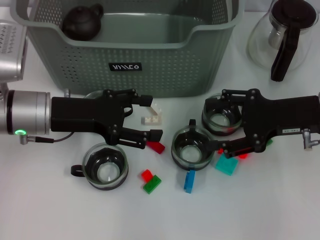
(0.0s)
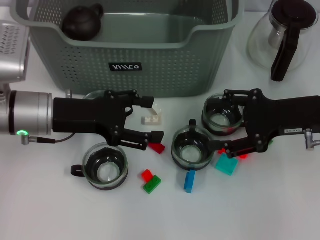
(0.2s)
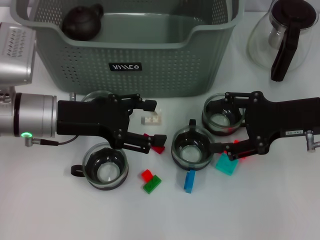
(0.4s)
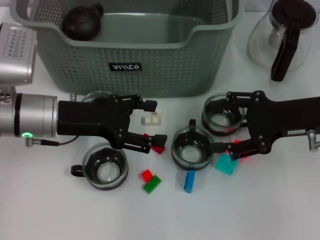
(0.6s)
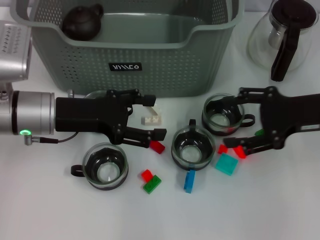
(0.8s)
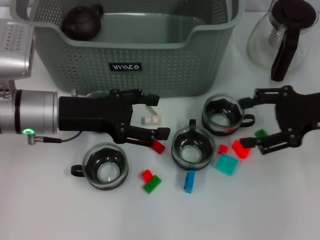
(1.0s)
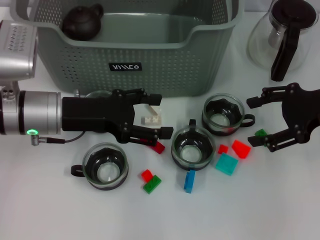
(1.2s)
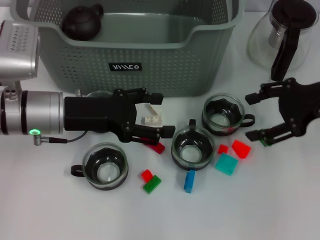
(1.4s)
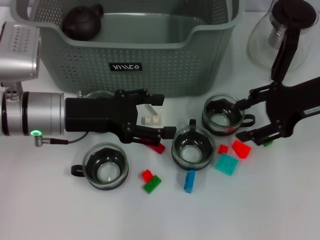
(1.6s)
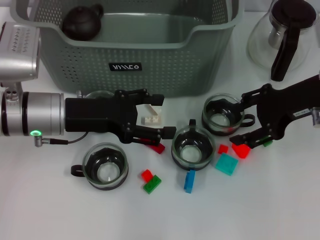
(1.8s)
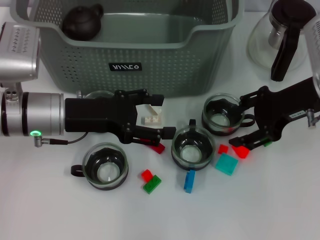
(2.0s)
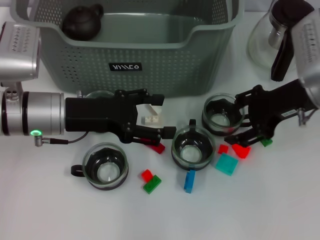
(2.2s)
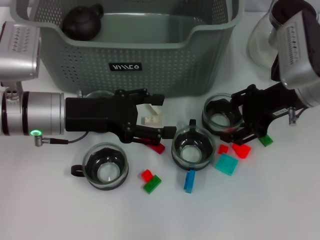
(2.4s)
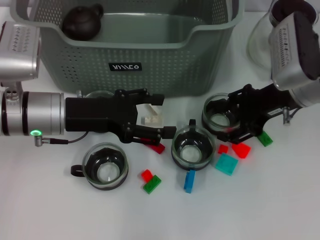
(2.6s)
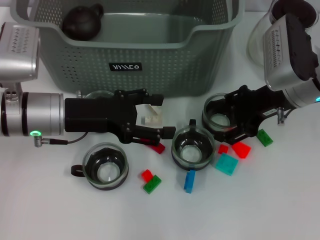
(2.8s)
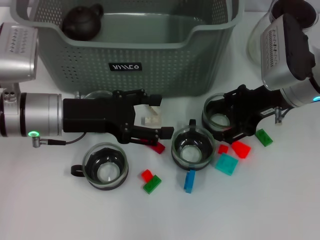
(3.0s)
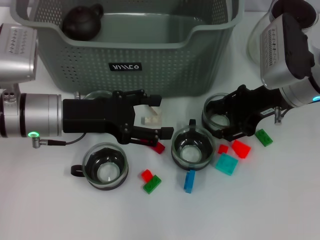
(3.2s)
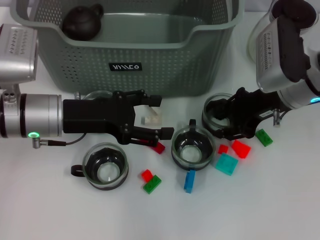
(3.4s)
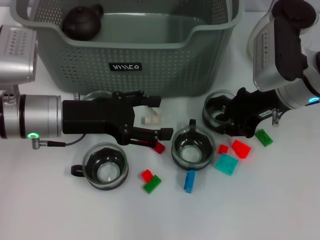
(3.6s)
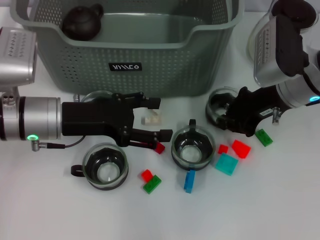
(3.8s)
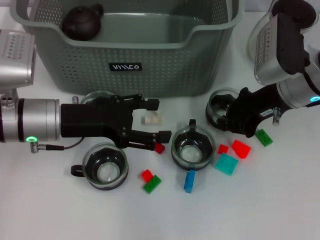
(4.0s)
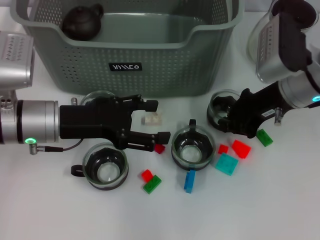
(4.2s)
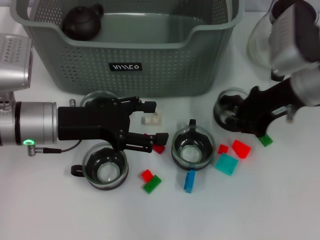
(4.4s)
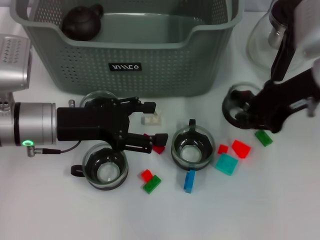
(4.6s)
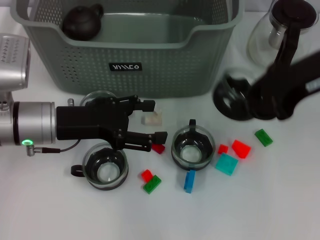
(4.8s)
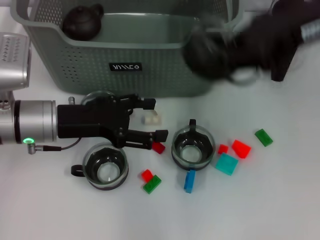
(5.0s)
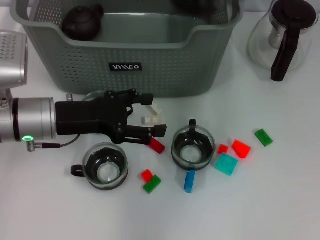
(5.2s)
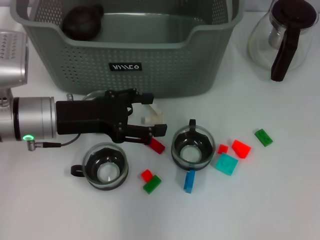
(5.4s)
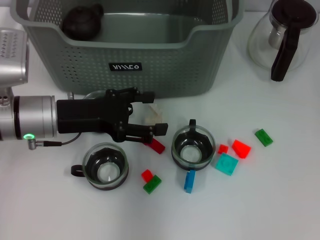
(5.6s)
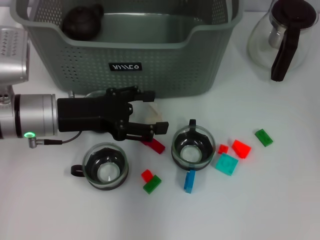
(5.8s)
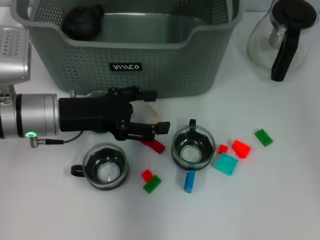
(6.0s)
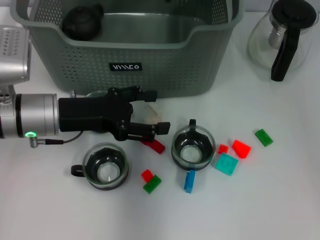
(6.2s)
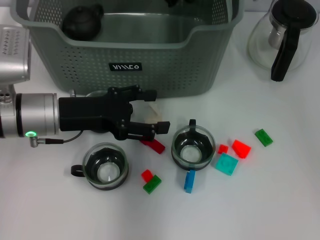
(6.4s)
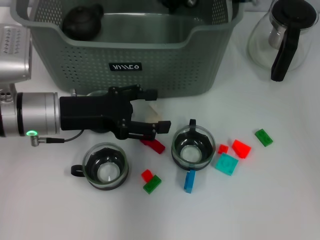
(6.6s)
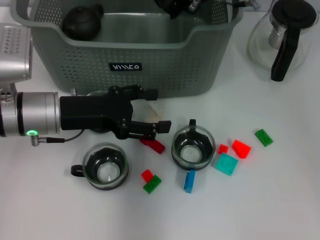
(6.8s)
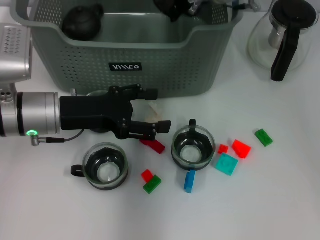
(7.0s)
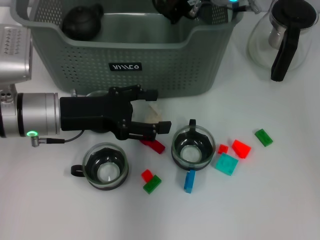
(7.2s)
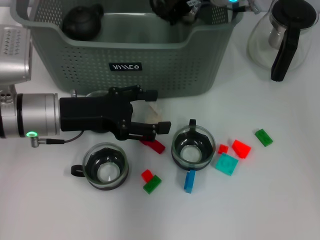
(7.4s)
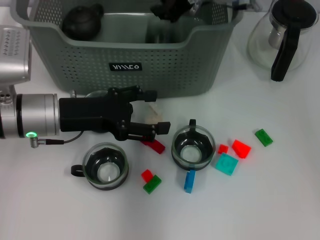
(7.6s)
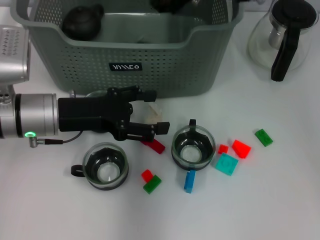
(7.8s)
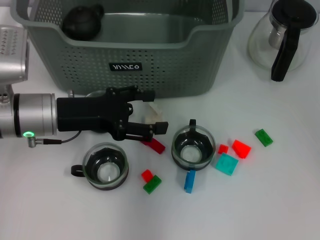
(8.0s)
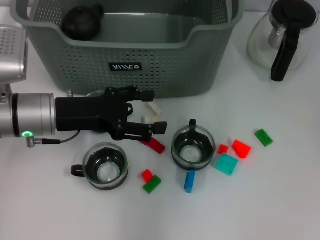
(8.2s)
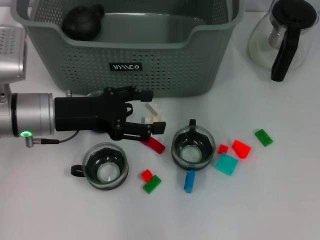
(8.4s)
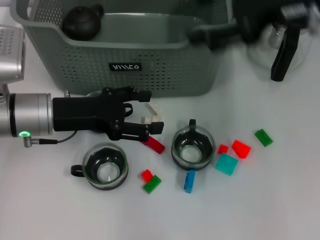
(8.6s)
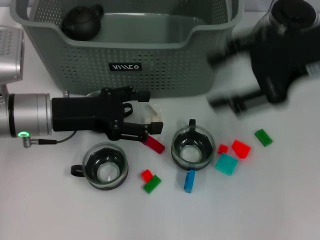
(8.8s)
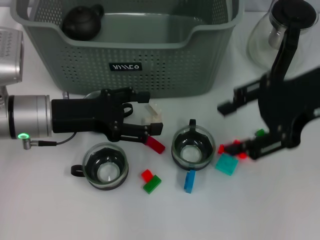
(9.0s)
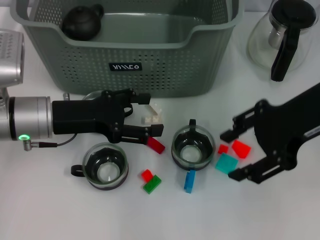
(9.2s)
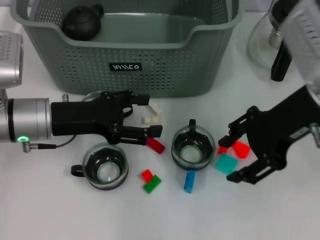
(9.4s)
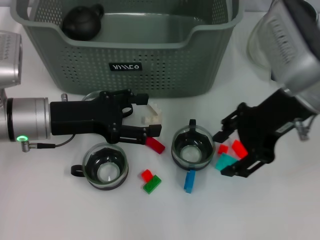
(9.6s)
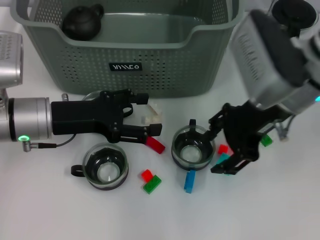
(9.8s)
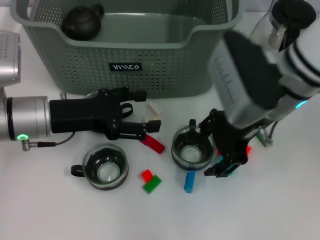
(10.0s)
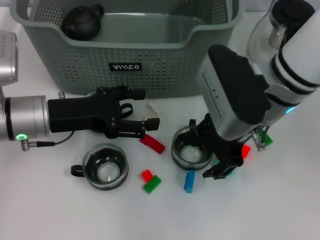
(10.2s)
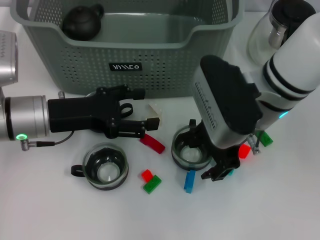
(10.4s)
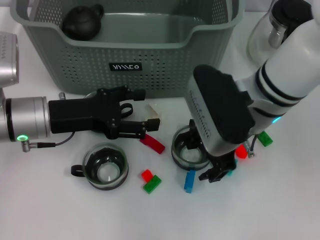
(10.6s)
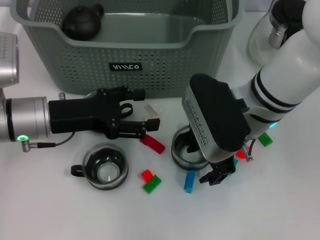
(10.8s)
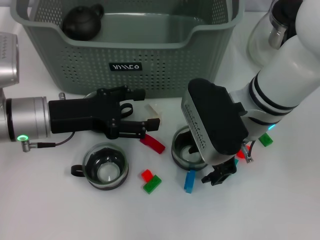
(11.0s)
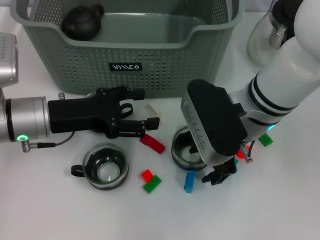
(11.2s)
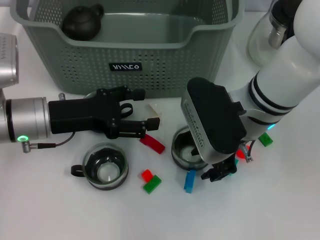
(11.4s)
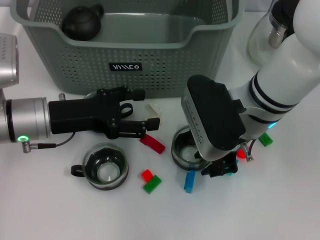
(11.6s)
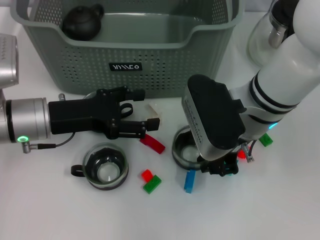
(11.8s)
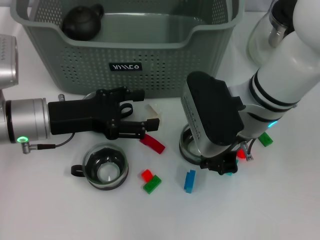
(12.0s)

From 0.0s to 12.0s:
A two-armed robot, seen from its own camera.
Task of the whole recording: pick up the teacup on the table and place it into the storage bin, pick up the block on the table and place it into the storage bin.
Step, from 0.0s to 3.8s: Grasp the cup with right gripper.
Step, from 4.0s to 8.2s: Place the cup in the storage box with right gripper.
Step, from 8.4s to 11.8s: Grasp the cup with right gripper.
From 0.0s to 1.6s: The right gripper shifts by about 5 cm.
From 1.6s to 3.0s: The right gripper moves to the left, roughly 5 cm.
From 3.0s to 4.4s: The right gripper closes its fingers.
From 4.4s to 6.0s: The right gripper heads to the left, upward and forward, covering some 20 cm.
From 6.0s to 7.6s: The grippers make only small movements.
From 7.6s to 9.0s: The right gripper heads backward and to the right, covering approximately 20 cm, and opens its fingers.
From 9.0s to 10.4s: The right gripper goes approximately 15 cm to the left and downward.
From 10.4s to 12.0s: The right gripper closes its fingers.

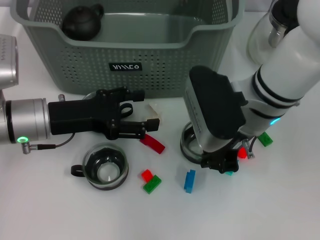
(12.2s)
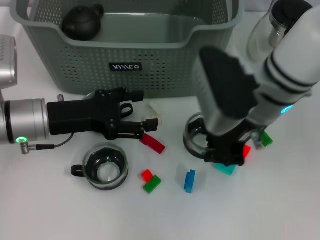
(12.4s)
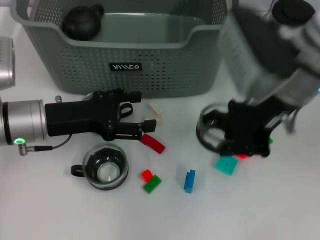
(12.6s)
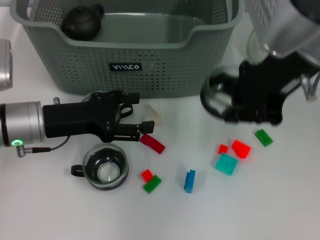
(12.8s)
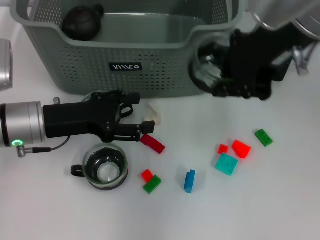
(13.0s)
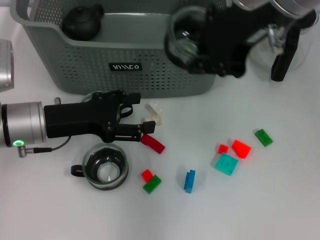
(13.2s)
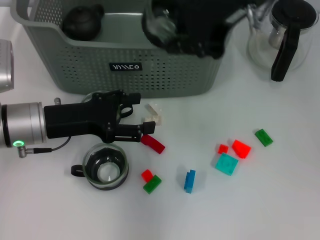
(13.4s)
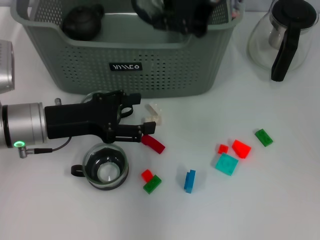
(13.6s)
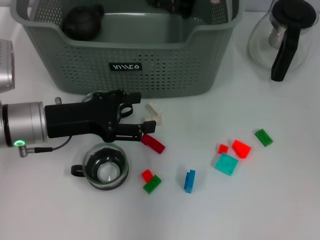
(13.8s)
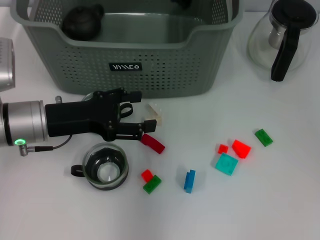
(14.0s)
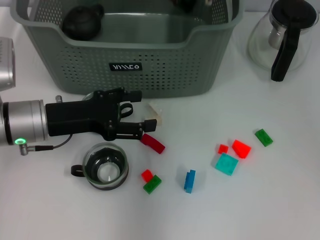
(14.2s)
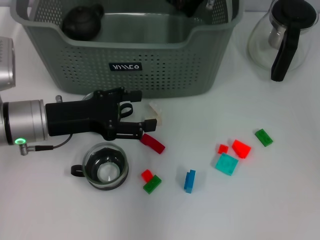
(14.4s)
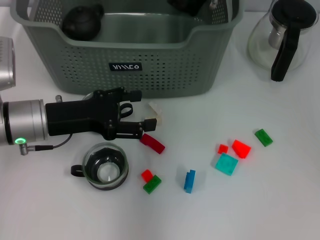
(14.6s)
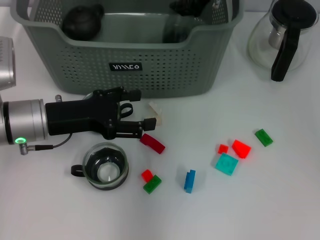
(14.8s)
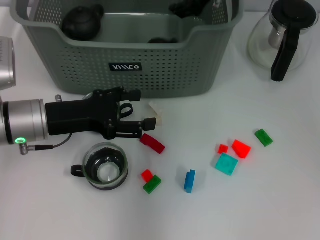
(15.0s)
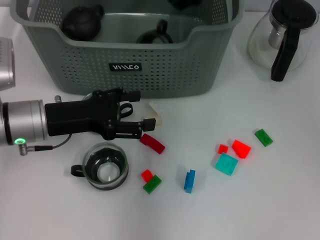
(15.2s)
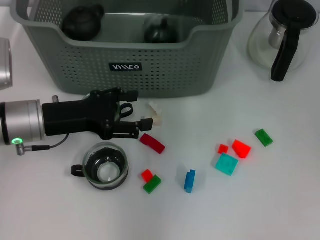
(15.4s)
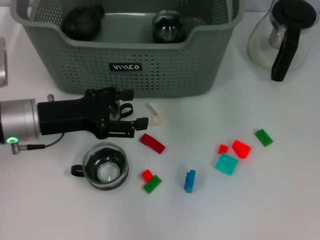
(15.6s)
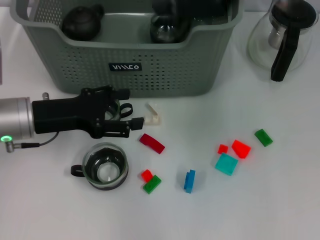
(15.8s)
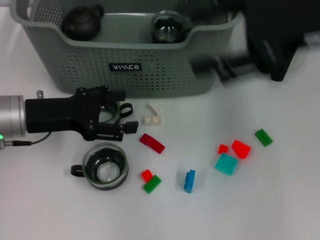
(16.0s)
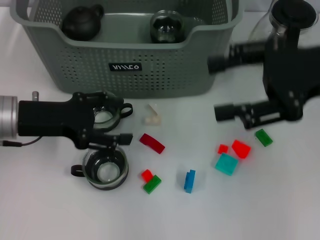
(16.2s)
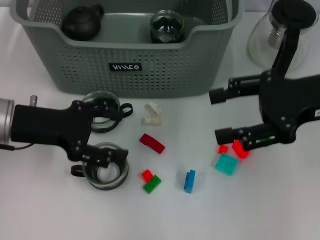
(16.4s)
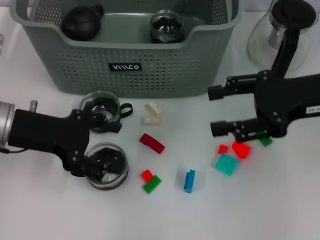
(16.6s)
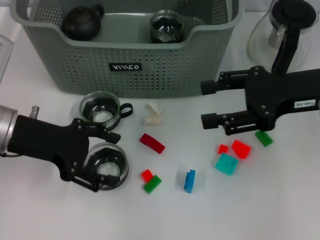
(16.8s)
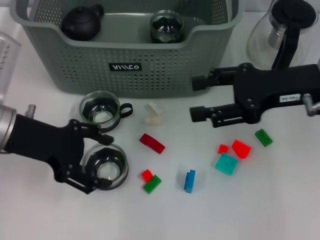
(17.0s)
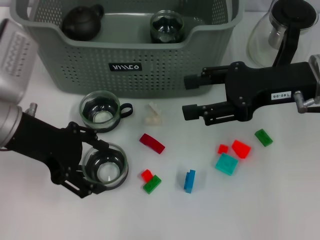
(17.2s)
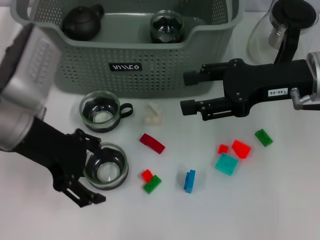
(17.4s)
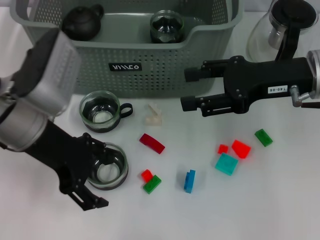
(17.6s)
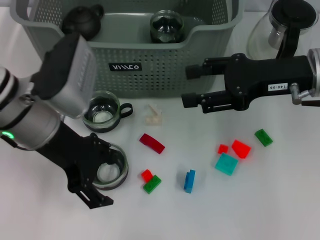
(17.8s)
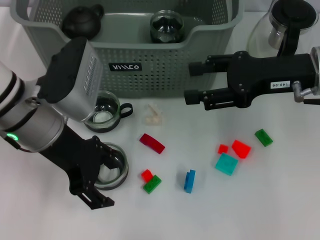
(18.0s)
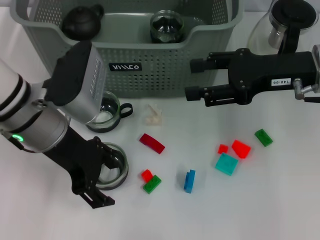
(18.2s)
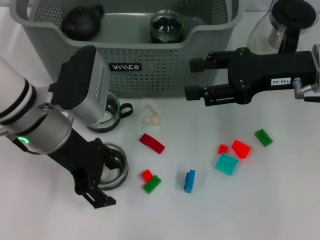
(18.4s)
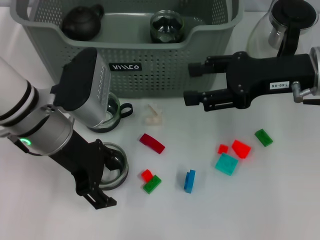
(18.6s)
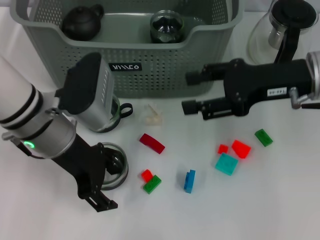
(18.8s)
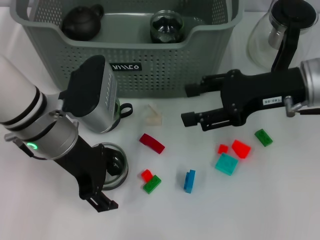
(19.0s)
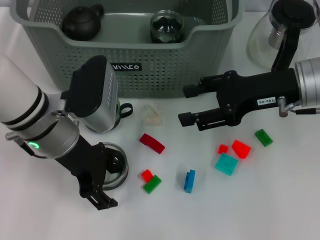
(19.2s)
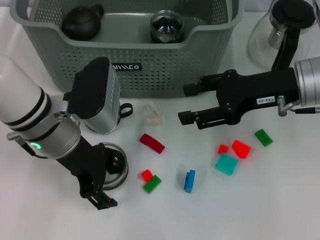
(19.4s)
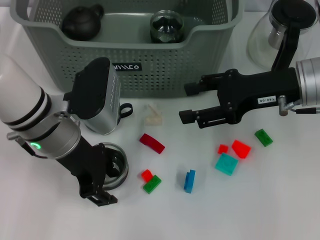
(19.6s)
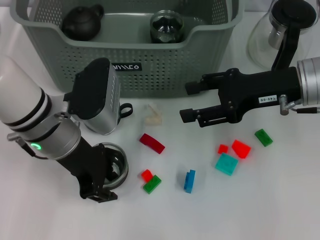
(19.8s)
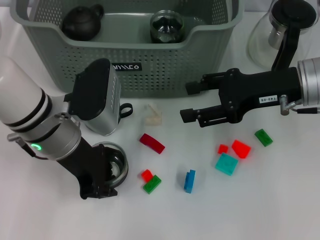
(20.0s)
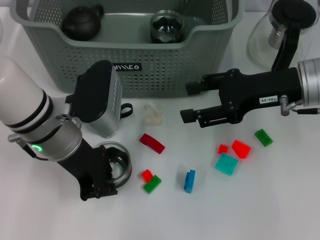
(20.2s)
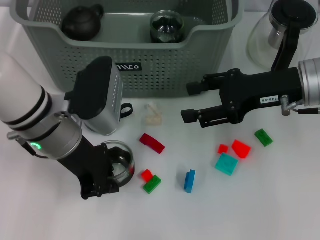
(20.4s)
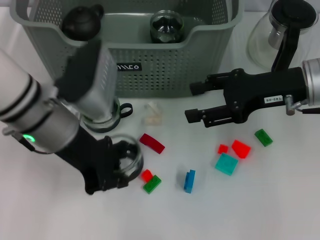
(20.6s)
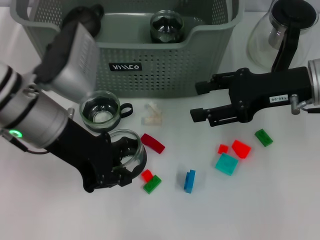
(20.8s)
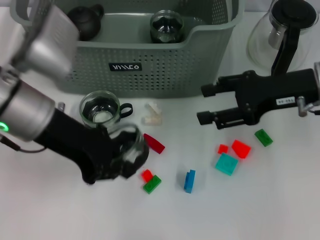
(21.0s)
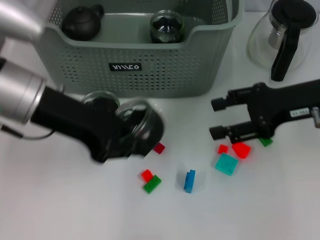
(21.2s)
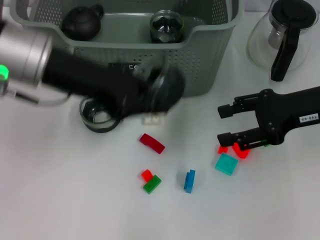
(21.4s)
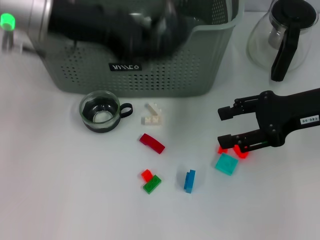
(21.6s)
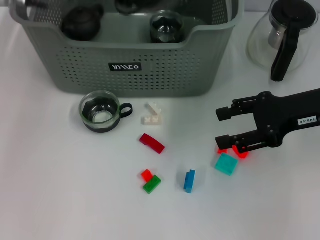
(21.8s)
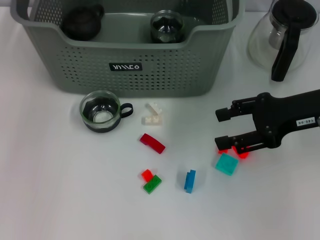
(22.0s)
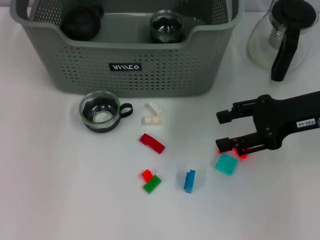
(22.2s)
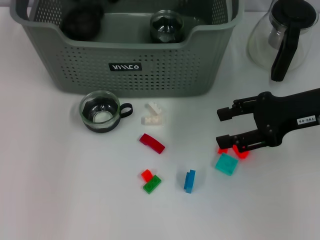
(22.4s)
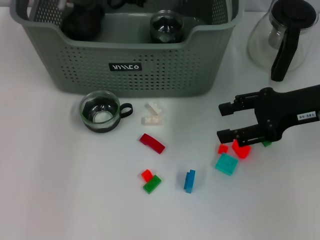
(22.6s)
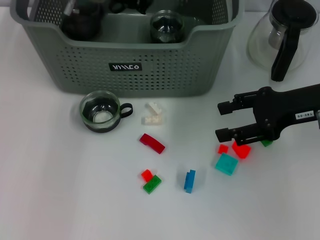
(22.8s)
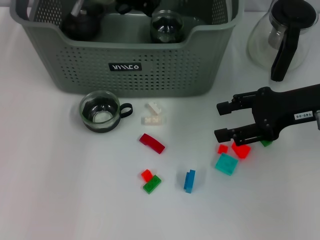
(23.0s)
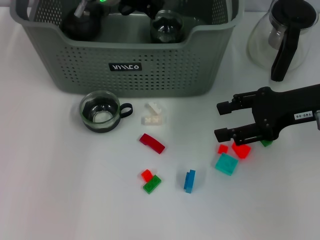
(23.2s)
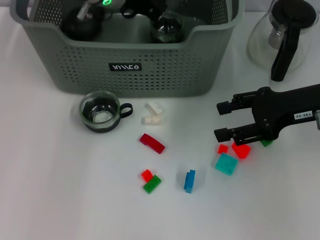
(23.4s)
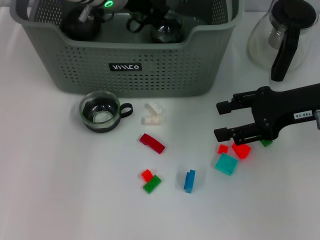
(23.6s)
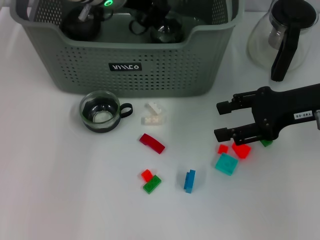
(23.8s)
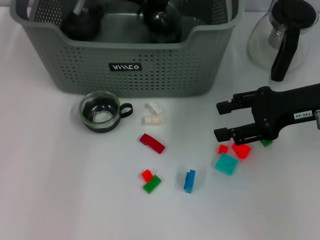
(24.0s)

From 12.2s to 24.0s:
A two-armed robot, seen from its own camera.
Task of the whole recording: pick up the teacup on the table and place it into the storage bin, pick up the block on the table and place it into the storage bin.
Step, from 12.2s to 15.2s: Place the cup in the storage box with right gripper.
Step, from 15.4s to 20.0s: Grasp the cup with left gripper.
From 12.2s to 13.6s: The right gripper heads upward, covering approximately 15 cm.
From 13.6s to 15.2s: The right gripper is displaced forward and downward by approximately 10 cm, and opens its fingers.
From 15.2s to 16.6s: The right gripper moves to the right, backward and downward, roughly 20 cm; the left gripper ends up approximately 5 cm from where it was.
From 16.6s to 18.2s: The left gripper is displaced to the right by roughly 10 cm.
From 18.2s to 19.6s: There are only small adjustments of the grippers.
From 19.6s to 21.0s: The left gripper shifts roughly 5 cm upward, and closes its fingers.
From 21.0s to 22.6s: The left gripper shifts approximately 20 cm forward.
From 22.6s to 24.0s: The grippers make only small movements.
